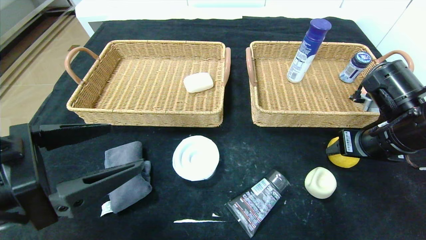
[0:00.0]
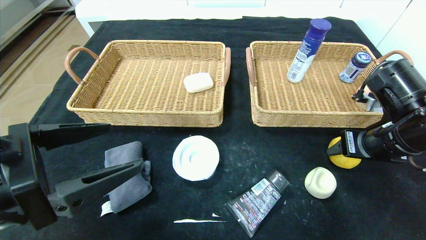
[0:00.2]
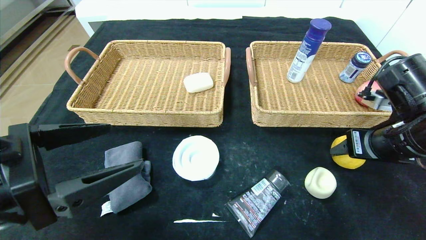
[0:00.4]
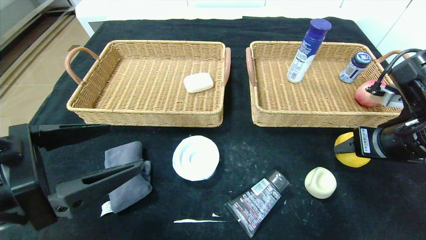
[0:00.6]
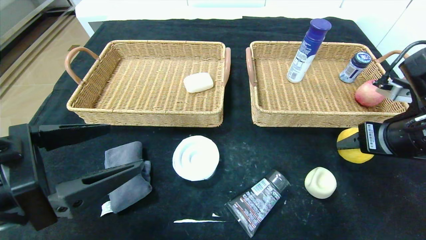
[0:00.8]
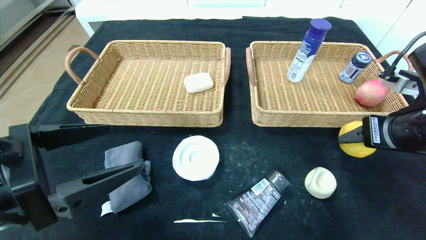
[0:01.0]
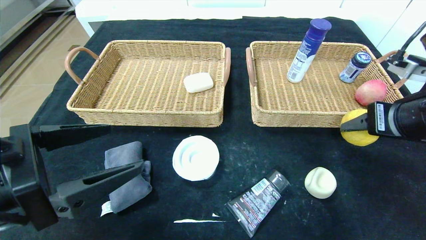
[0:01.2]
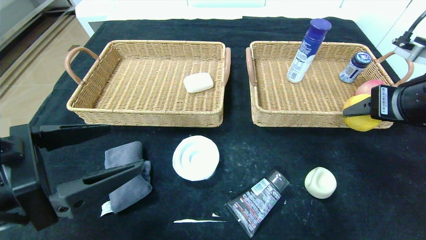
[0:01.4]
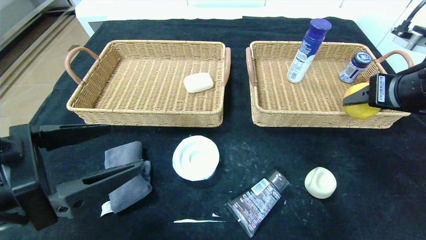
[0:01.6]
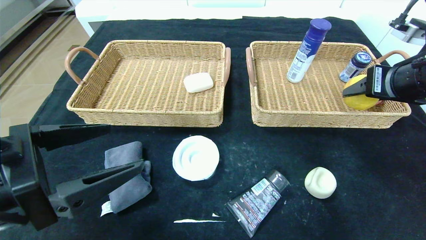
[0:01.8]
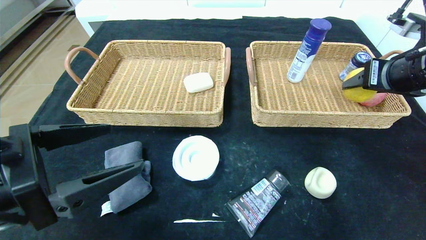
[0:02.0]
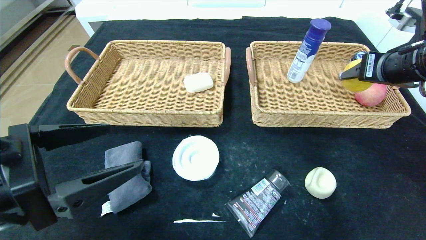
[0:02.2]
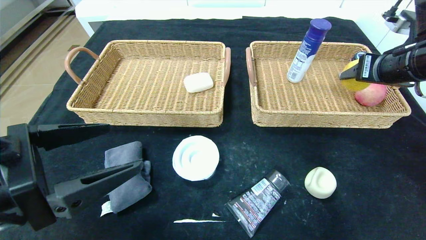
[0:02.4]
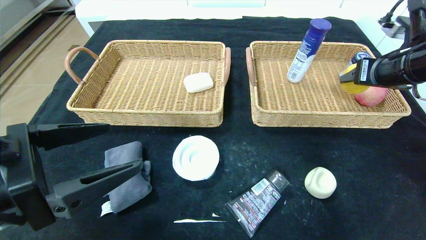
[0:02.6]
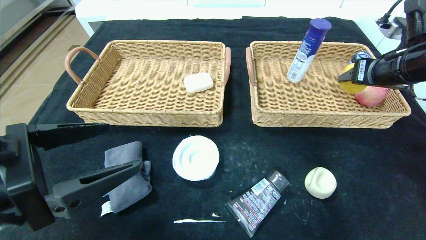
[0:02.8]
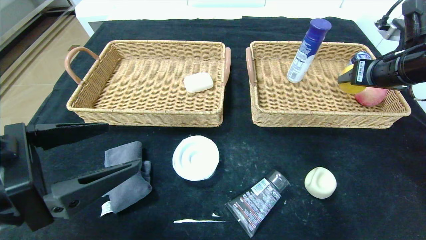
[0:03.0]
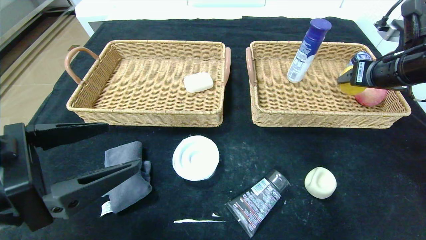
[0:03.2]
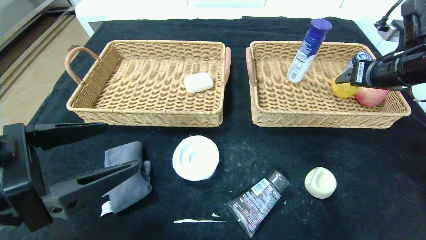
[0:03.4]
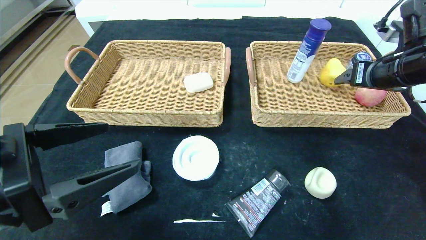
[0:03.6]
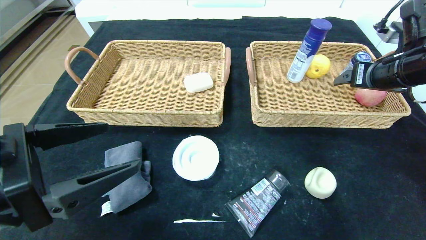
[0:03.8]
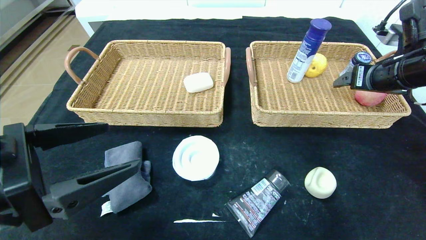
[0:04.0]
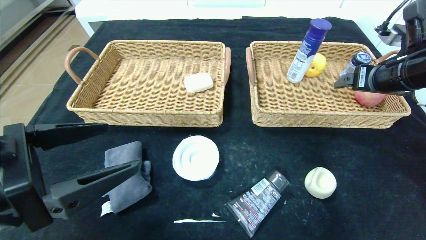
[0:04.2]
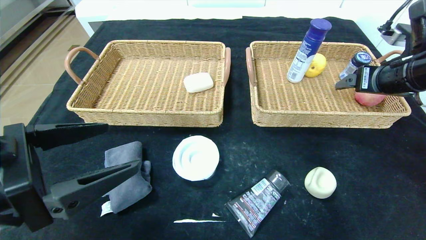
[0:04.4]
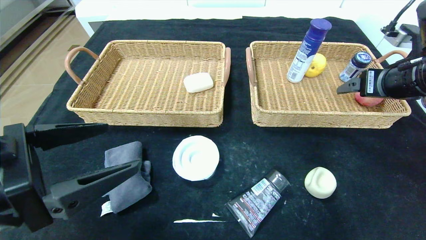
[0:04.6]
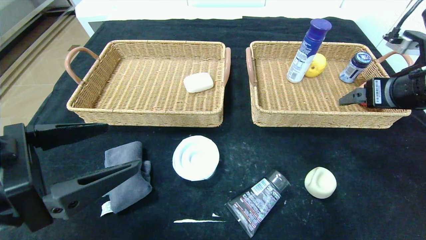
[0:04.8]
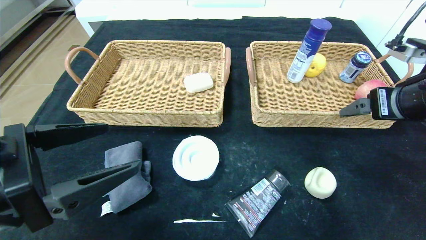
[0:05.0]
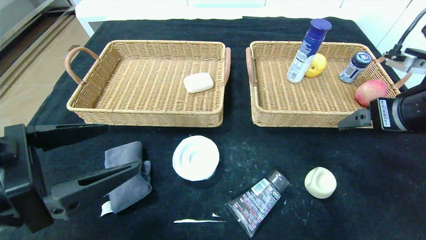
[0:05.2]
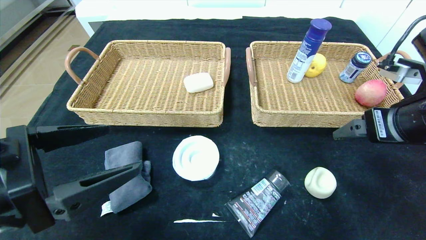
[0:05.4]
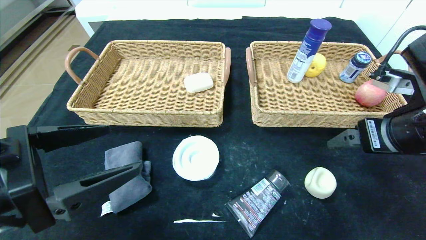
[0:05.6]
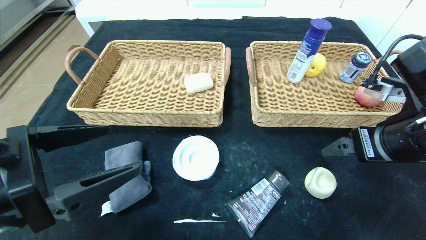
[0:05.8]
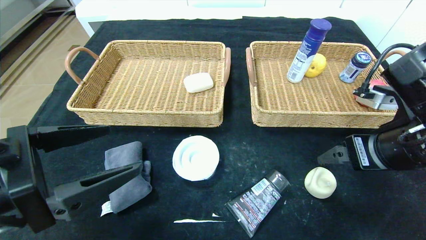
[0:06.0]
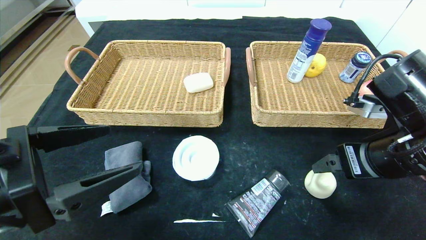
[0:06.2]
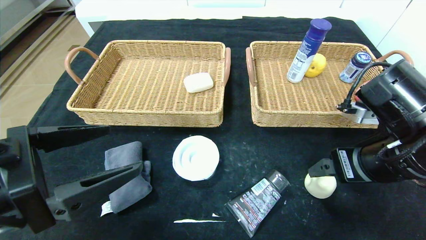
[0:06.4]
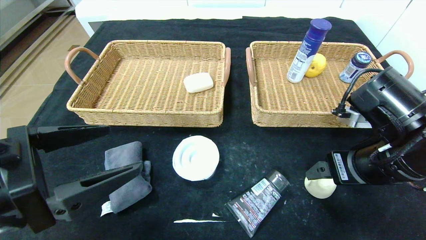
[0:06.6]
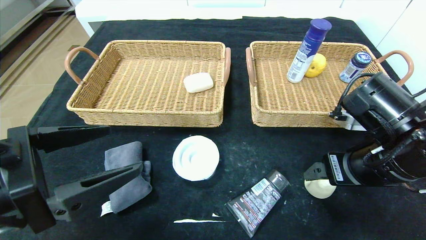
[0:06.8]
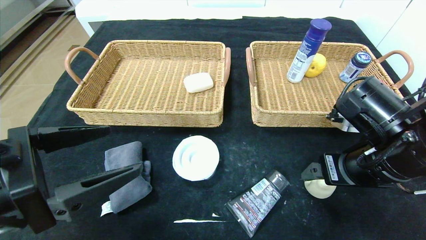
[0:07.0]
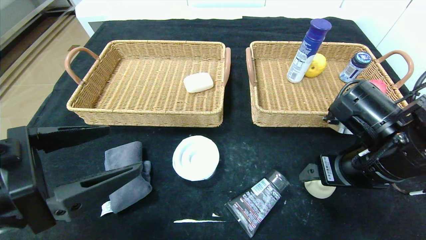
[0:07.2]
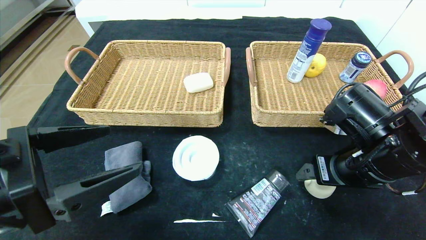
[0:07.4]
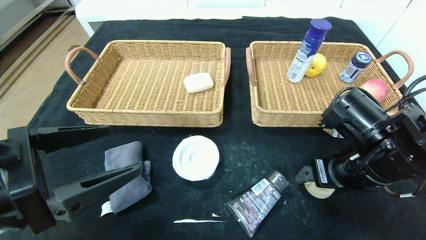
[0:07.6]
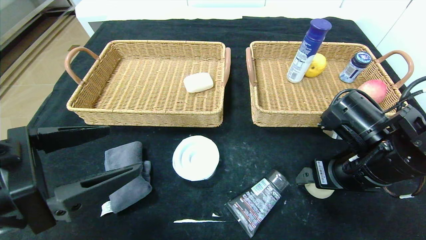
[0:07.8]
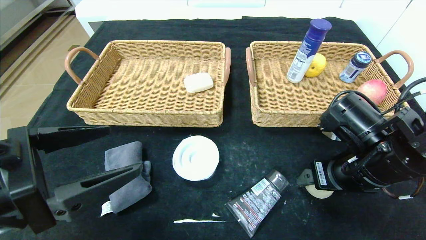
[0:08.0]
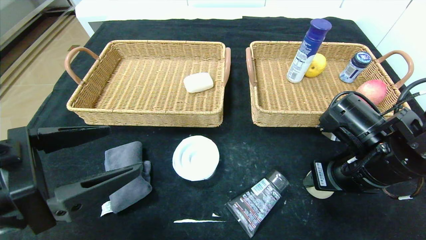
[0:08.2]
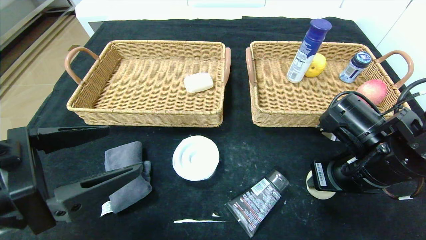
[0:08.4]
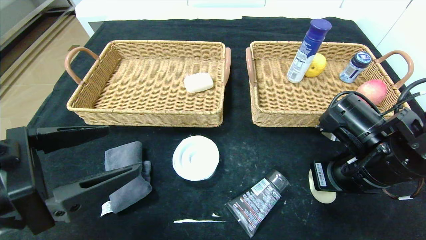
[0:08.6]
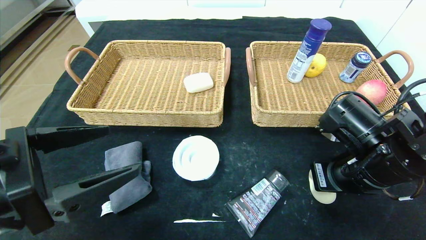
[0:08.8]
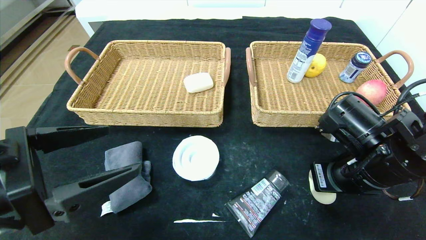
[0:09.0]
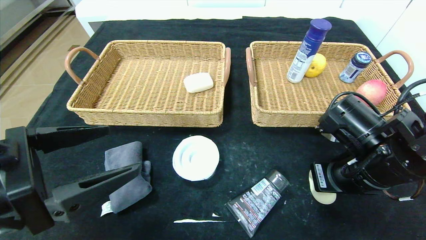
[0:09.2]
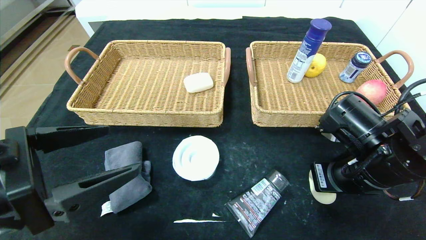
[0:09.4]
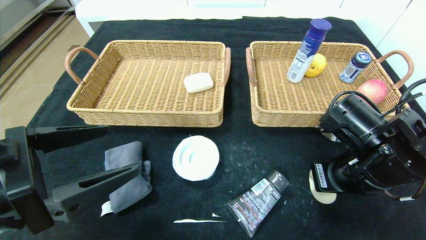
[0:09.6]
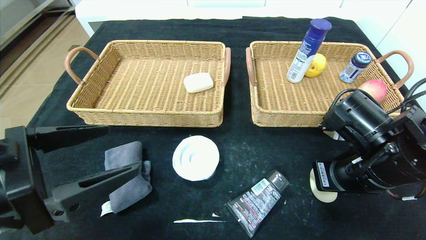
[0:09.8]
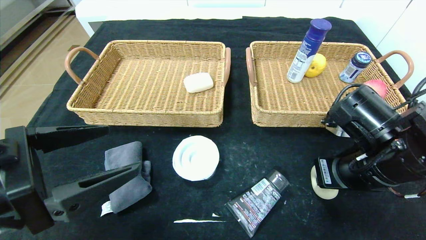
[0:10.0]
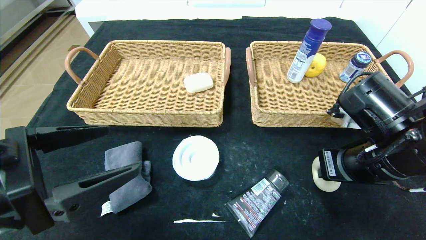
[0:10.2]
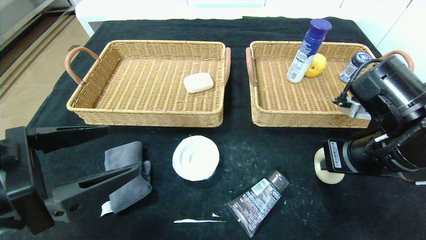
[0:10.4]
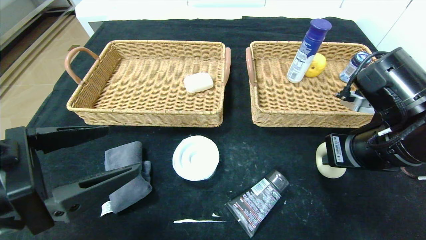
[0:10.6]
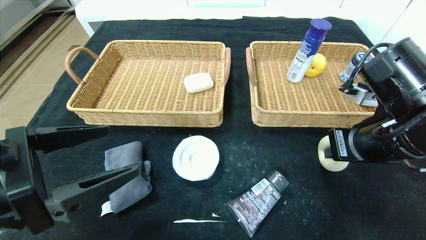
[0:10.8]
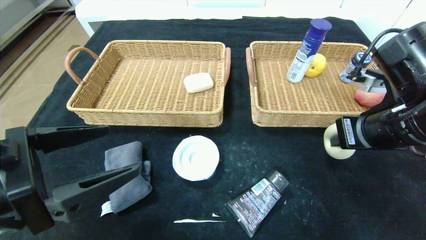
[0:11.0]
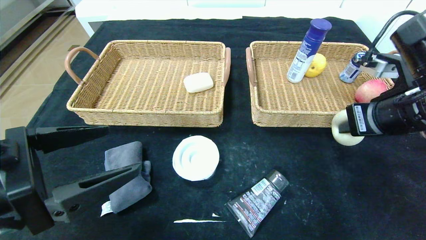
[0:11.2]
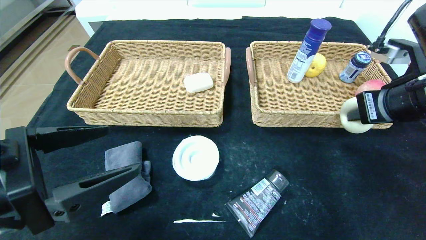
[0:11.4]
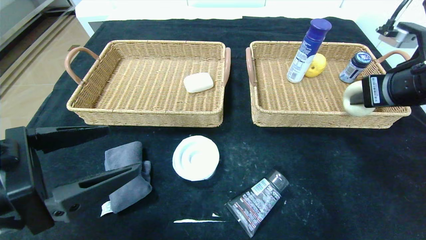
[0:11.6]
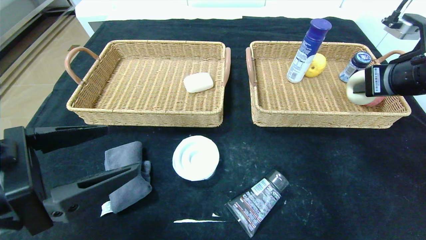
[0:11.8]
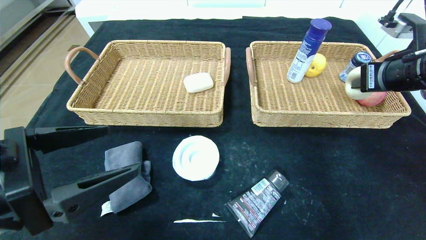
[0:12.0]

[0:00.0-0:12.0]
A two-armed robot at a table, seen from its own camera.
Step, 0:00.0 to 0:05.8: Pick up the pear and put it in the right basket.
0:00.0 to 0:01.6: The right gripper travels upward by about 10 cm.
0:01.6 to 0:03.0: The right gripper moves forward, about 10 cm.
0:03.0 to 0:04.4: The right gripper opens its fingers.
0:04.4 to 0:06.0: The right gripper shifts some 15 cm backward and to the left.
0:06.0 to 0:07.6: The right gripper goes some 5 cm downward.
0:07.6 to 0:09.0: The right gripper closes.
0:09.0 to 0:10.4: The grippers make only small movements.
0:10.4 to 0:12.0: The right gripper heads to the right, upward and forward, covering approximately 15 cm.

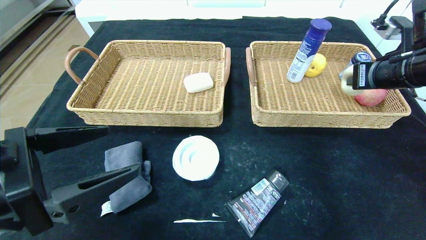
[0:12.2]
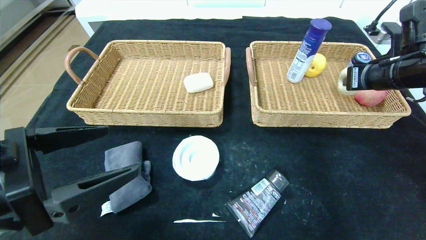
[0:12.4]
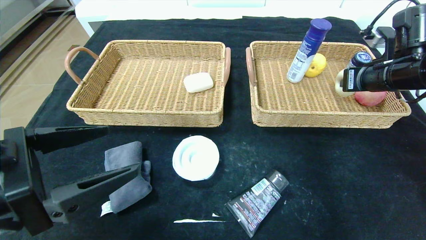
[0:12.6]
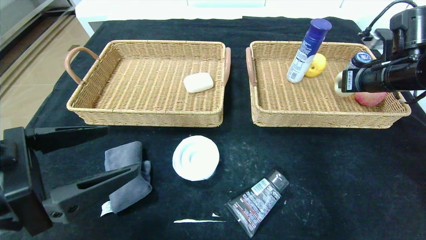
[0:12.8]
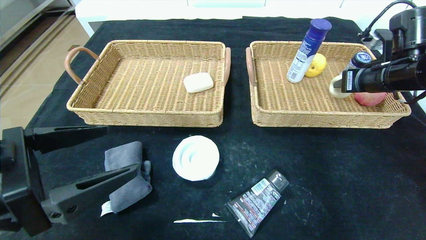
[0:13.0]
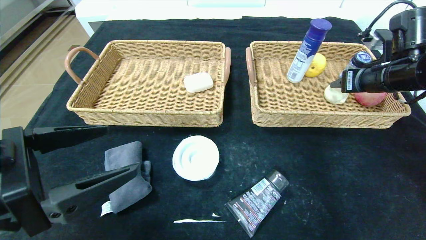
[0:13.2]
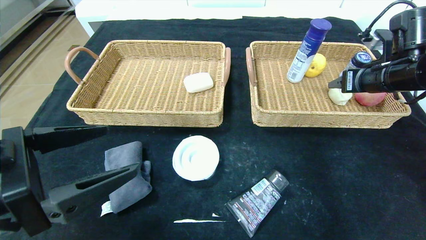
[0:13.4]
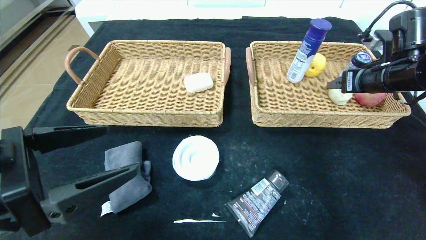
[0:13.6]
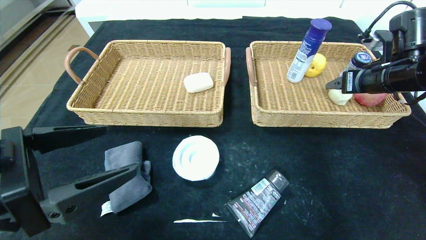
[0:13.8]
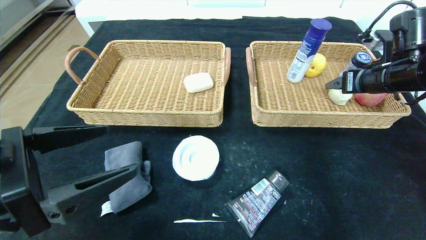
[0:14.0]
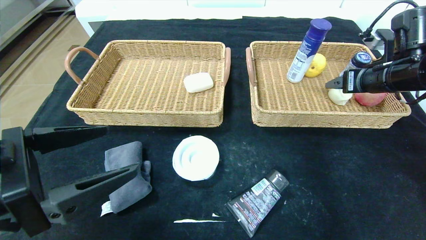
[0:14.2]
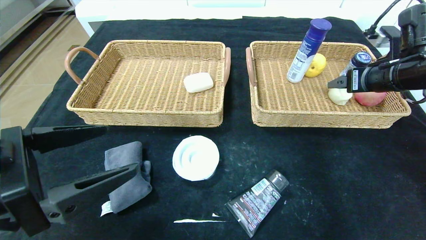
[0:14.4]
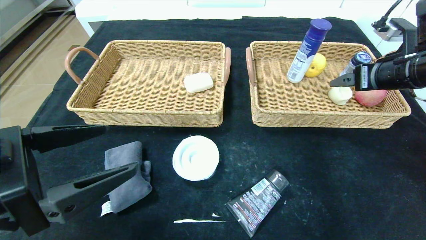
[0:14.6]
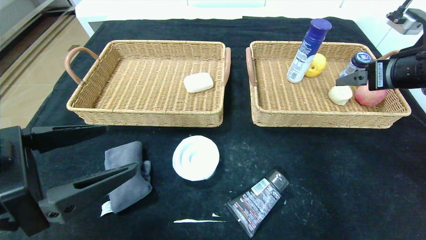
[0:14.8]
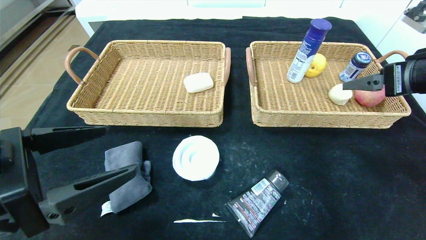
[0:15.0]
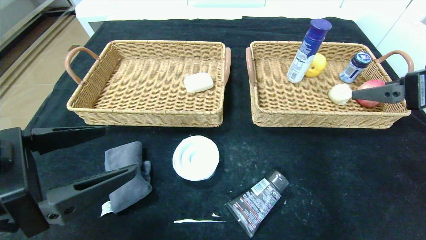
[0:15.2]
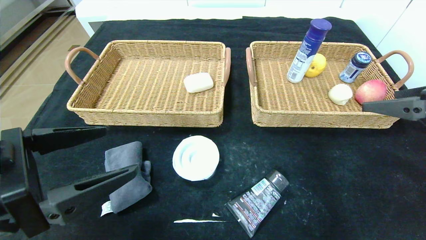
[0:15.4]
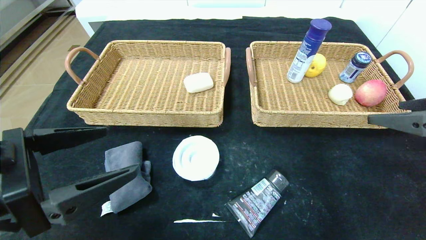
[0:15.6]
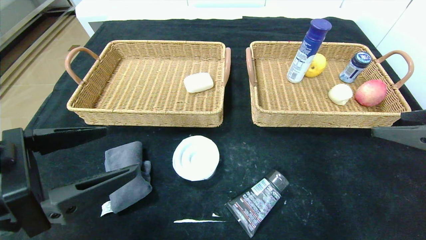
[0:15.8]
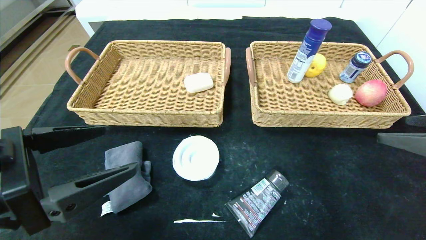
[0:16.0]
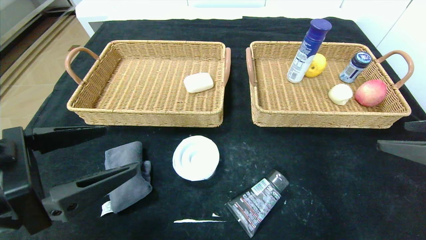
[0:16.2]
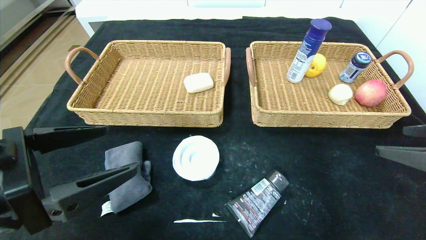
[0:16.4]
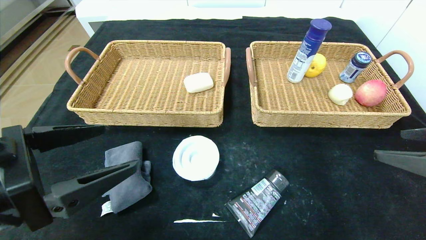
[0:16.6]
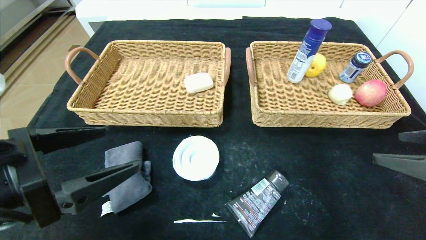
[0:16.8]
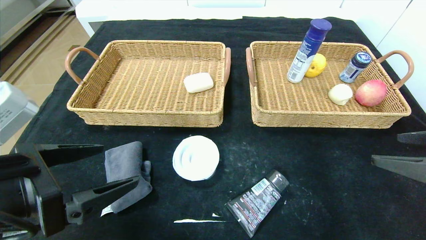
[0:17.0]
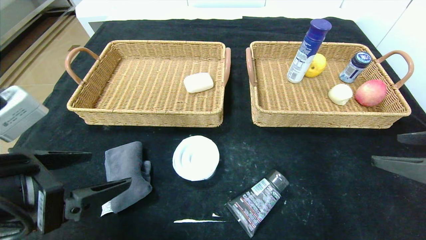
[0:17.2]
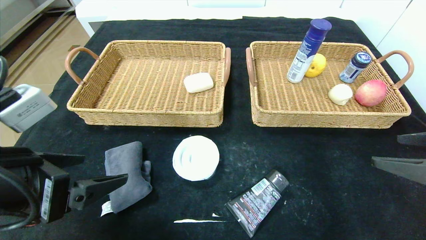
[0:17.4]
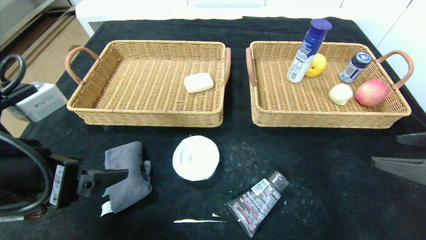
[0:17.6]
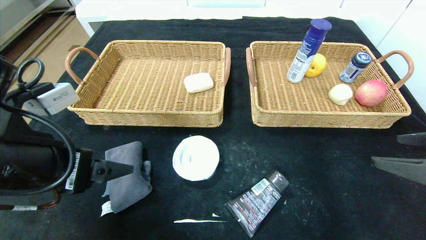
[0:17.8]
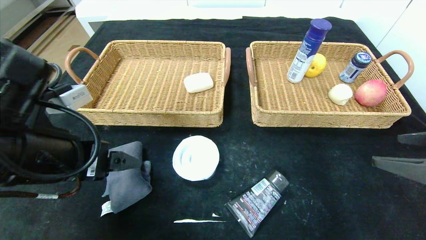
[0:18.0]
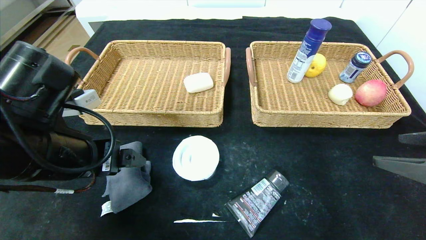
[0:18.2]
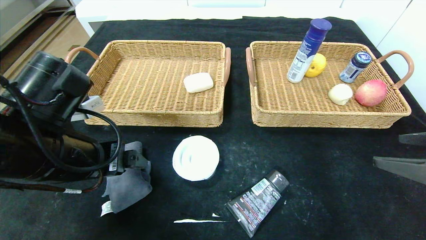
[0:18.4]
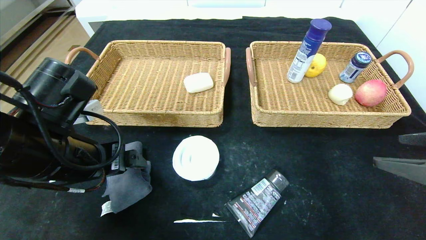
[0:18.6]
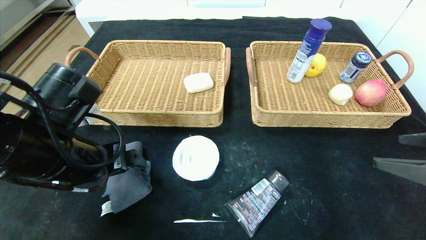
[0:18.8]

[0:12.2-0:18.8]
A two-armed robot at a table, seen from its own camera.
Step, 0:12.2 to 0:16.4: Pick up the egg yolk pastry and put it in the right basket.
0:12.2 to 0:13.8: The right gripper opens.
0:13.8 to 0:15.4: The right gripper goes roughly 15 cm backward.
0:15.4 to 0:17.2: The right gripper ends up roughly 5 cm from where it was.
0:17.2 to 0:18.8: The left gripper goes some 10 cm forward.
